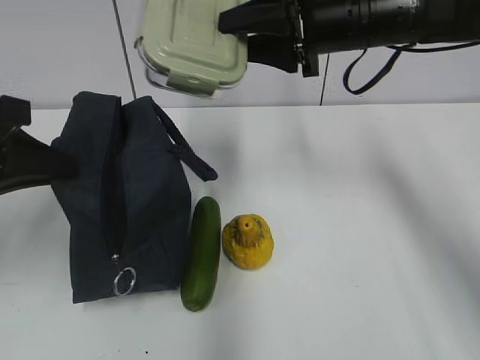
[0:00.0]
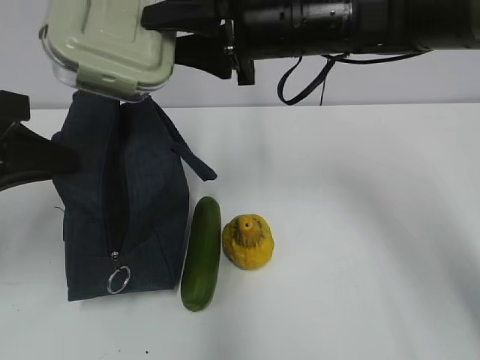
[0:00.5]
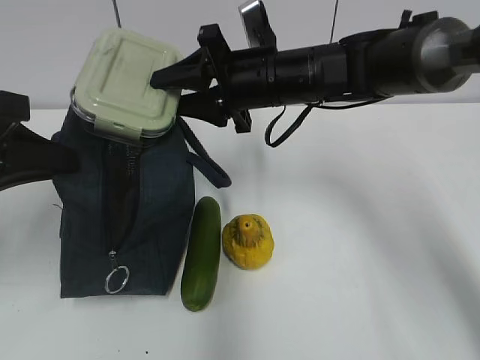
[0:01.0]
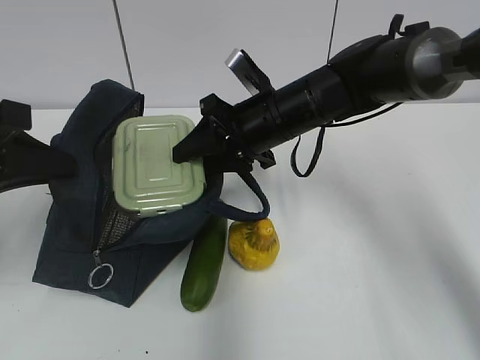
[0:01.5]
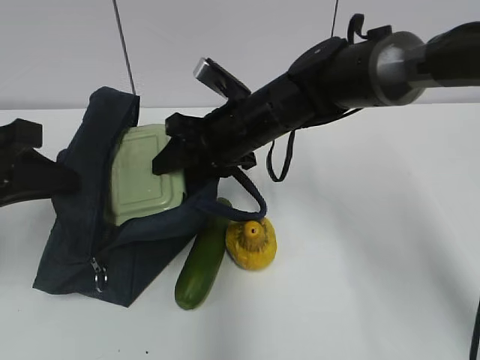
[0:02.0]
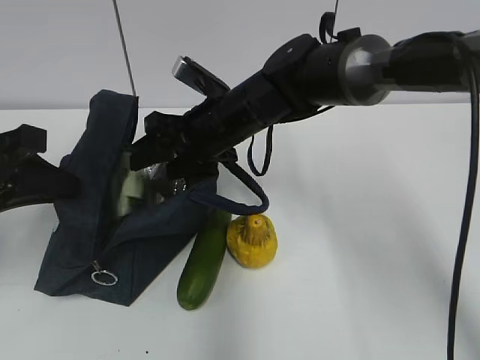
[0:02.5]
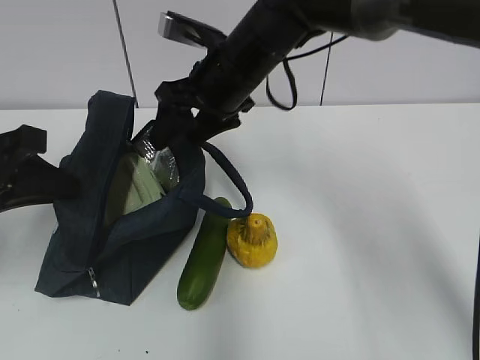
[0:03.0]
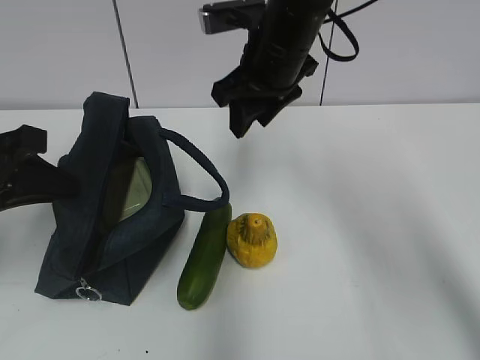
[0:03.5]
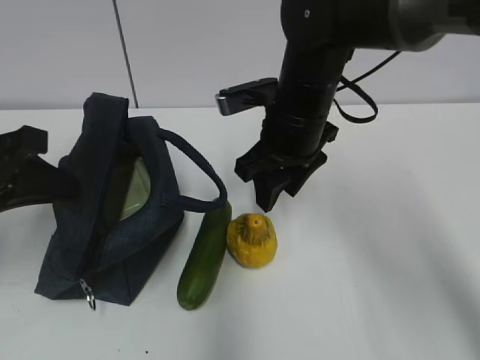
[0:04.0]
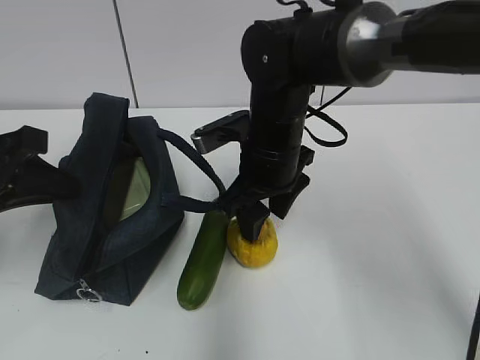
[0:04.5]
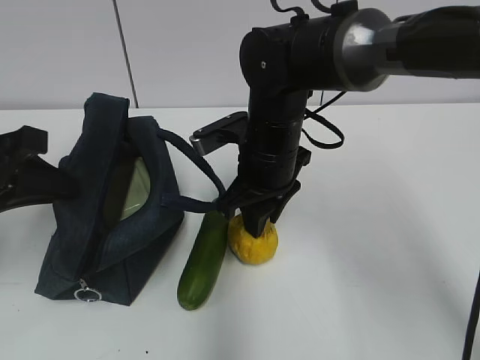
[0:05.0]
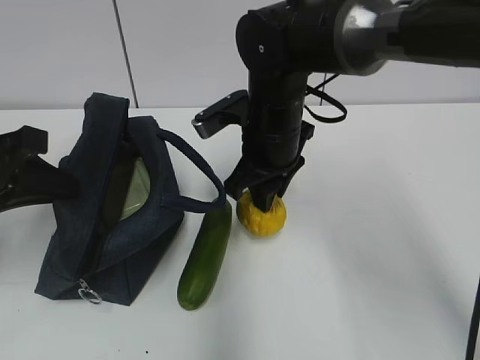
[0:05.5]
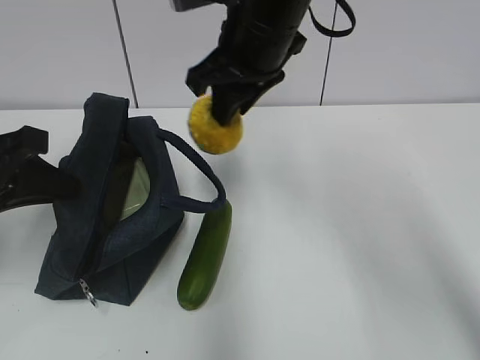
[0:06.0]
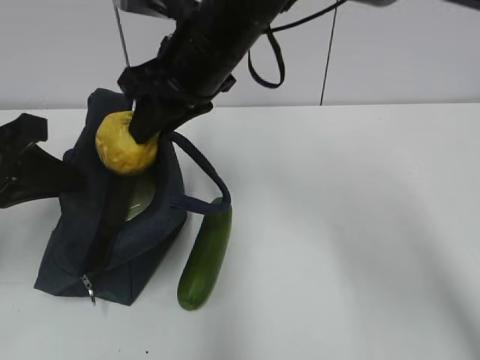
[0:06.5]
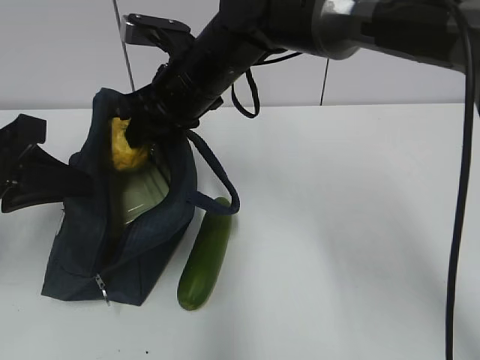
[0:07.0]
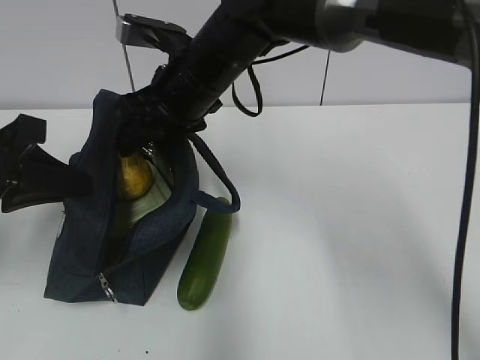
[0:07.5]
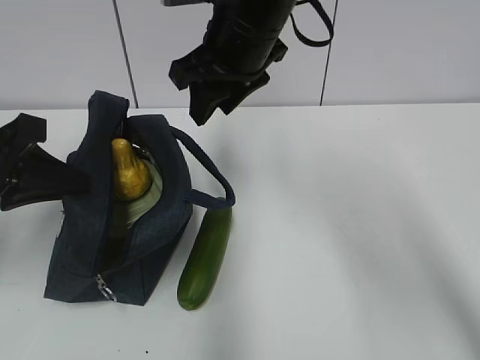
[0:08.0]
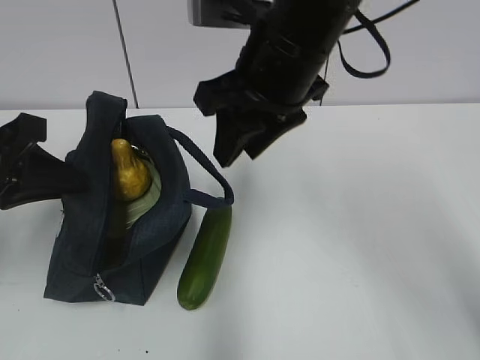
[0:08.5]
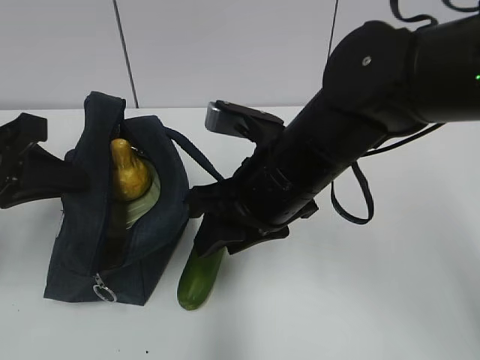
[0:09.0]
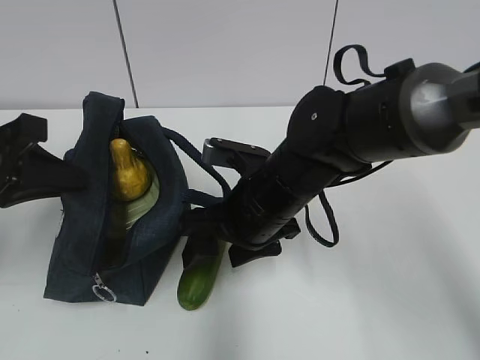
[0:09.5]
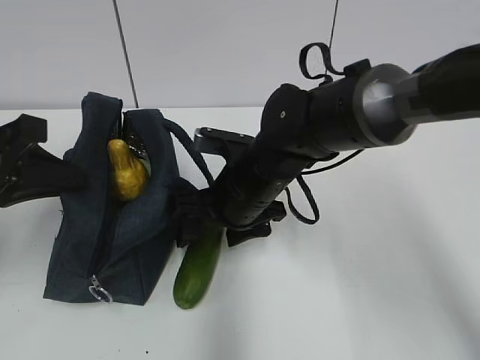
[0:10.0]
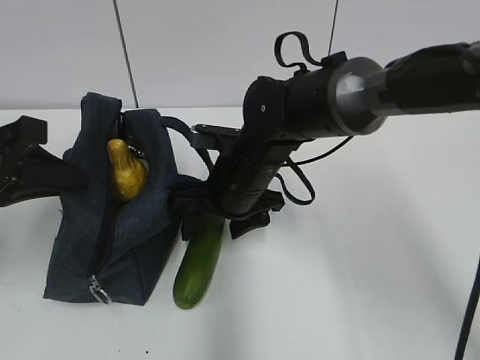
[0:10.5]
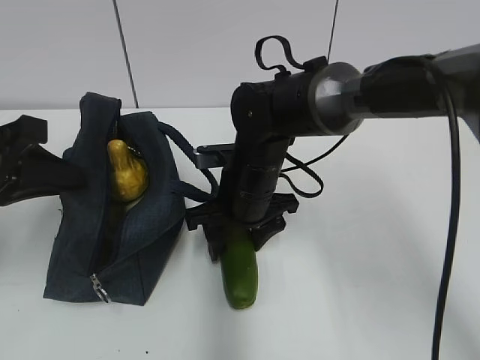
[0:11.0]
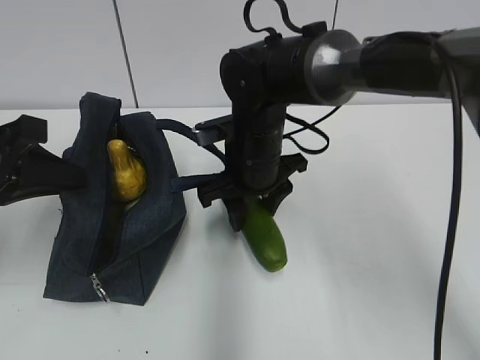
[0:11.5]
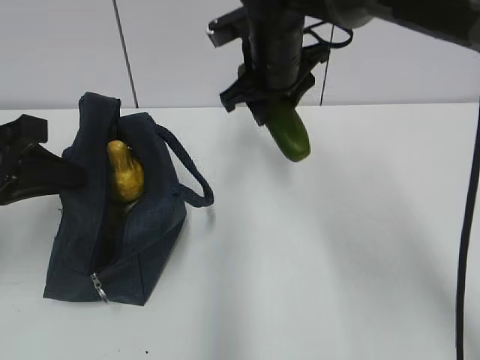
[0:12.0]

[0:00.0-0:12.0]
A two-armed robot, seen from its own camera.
0:00.0 to 0:02.0: The right gripper travels downward and to the left by approximately 15 cm.
0:02.0 to 0:04.0: The right gripper reaches about 10 cm upward, then returns.
0:04.0 to 0:06.0: The right gripper travels upward by approximately 10 cm.
0:08.0 to 0:10.0: The right gripper moves downward, approximately 15 cm, and opens its fingers.
0:10.0 to 0:12.0: The right gripper is displaced upward and forward by roughly 15 cm.

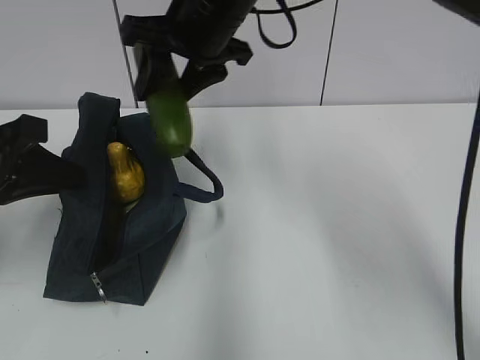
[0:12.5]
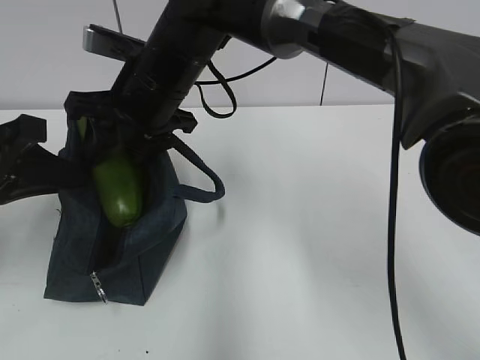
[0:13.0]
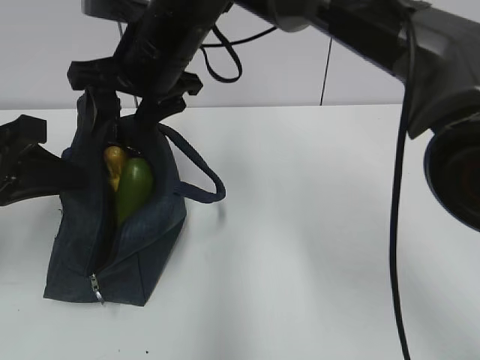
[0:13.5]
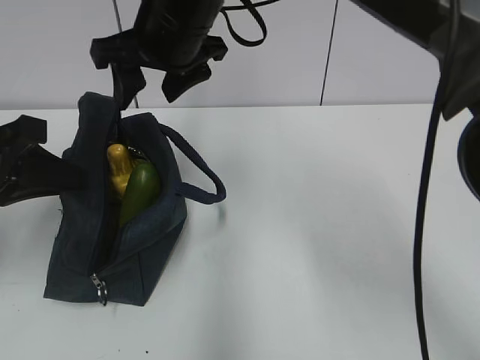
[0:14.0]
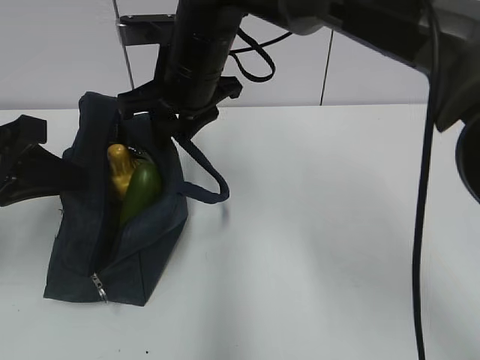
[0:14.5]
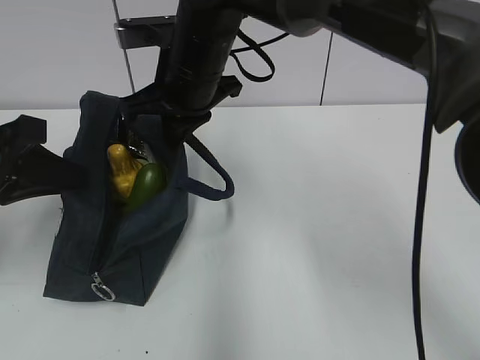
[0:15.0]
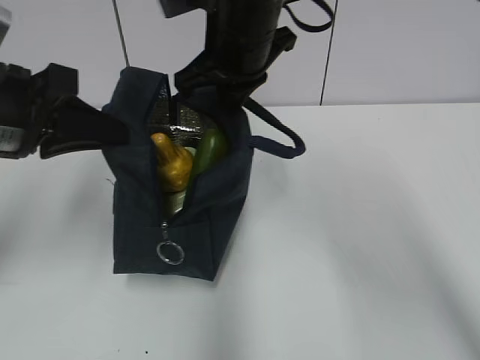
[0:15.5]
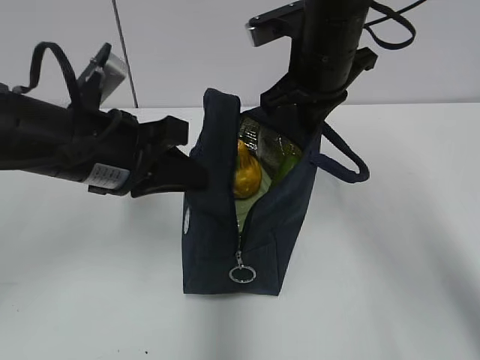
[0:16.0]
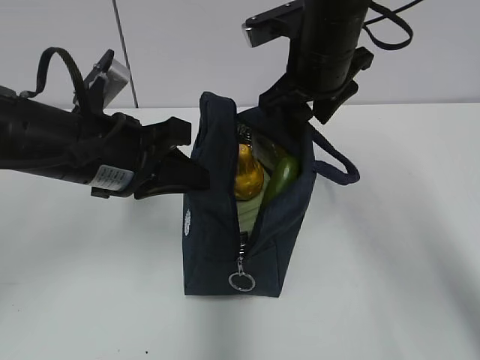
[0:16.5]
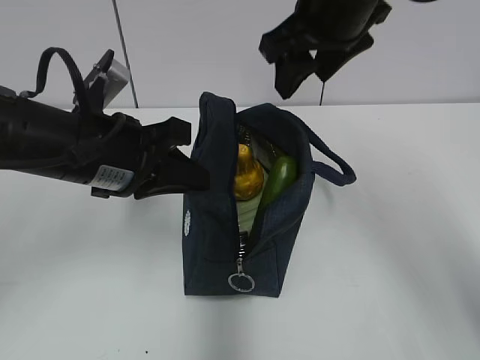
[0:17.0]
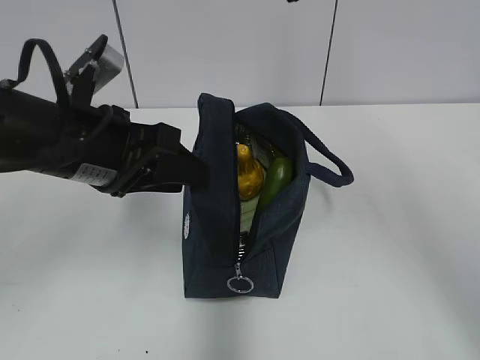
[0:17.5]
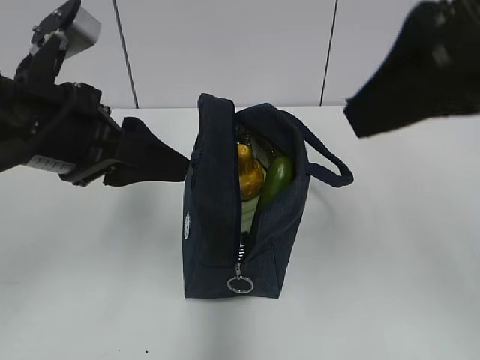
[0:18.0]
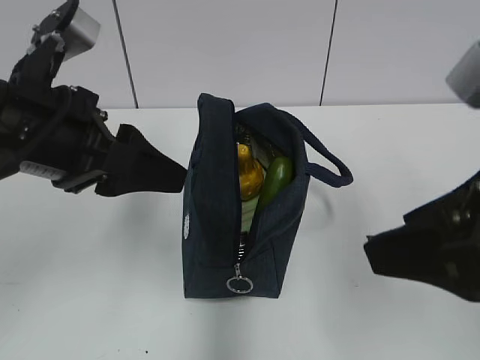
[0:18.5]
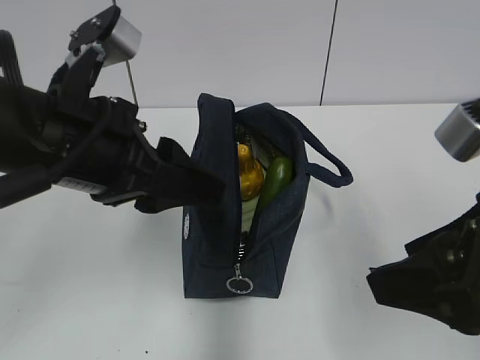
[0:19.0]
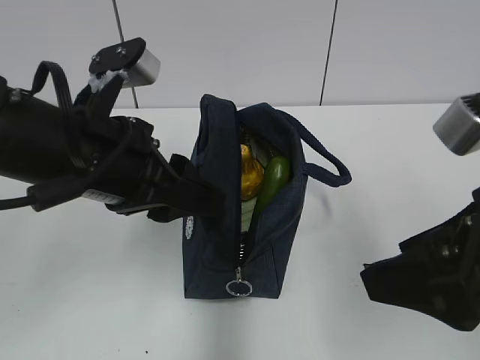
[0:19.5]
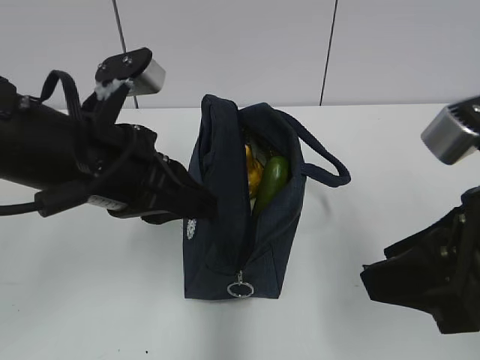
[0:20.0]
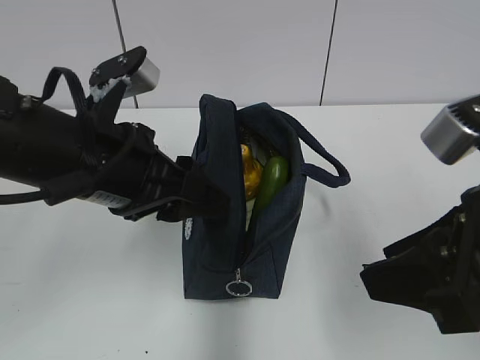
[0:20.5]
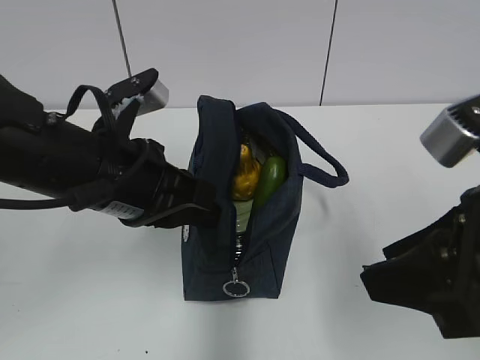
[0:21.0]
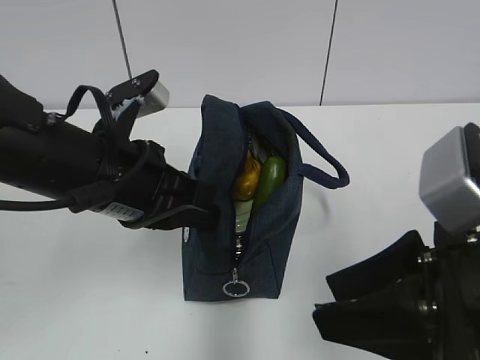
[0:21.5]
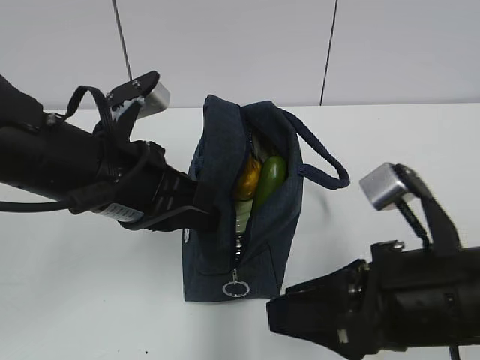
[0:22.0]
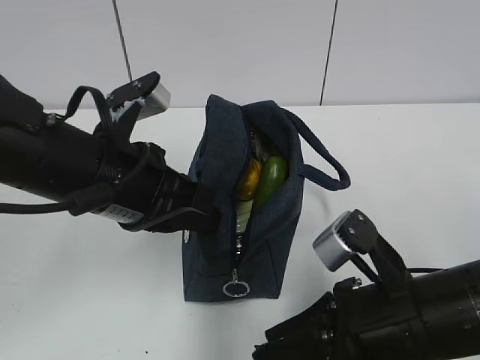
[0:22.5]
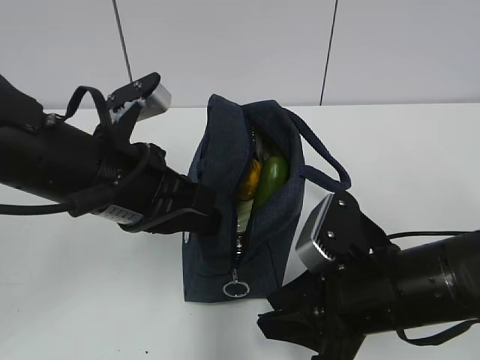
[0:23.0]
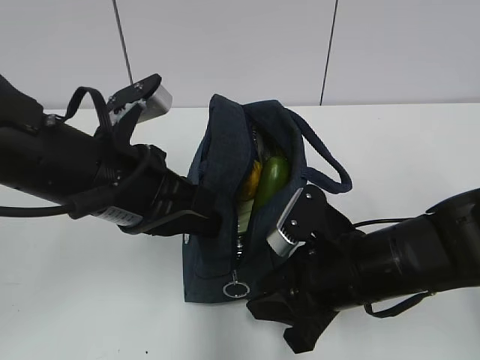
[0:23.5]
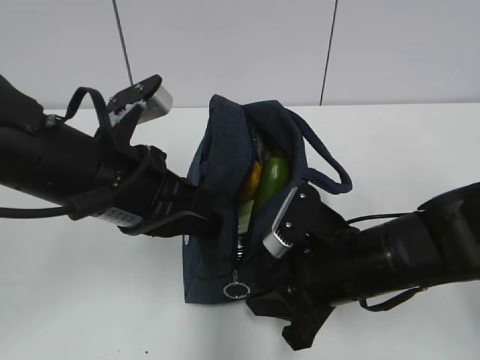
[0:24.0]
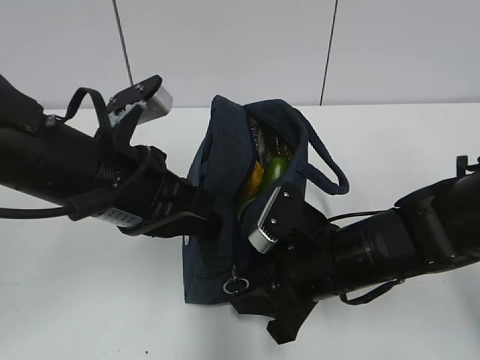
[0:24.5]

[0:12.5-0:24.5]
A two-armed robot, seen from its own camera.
0:12.5 to 0:14.5: The right gripper moves up and down over roughly 5 cm, changing direction 2 times.
0:14.5 to 0:16.5: The two grippers go approximately 10 cm to the right. The right gripper closes, then reopens.
0:16.5 to 0:18.5: The right gripper is displaced backward by about 25 cm. Meanwhile the left gripper changes place by some 5 cm, and opens up.
0:18.5 to 0:20.5: The left gripper moves roughly 5 cm, and closes, then opens again.
0:20.5 to 0:22.5: The right gripper shifts about 10 cm downward. Meanwhile the left gripper closes its fingers.
0:22.5 to 0:24.5: The right gripper moves forward, approximately 10 cm.

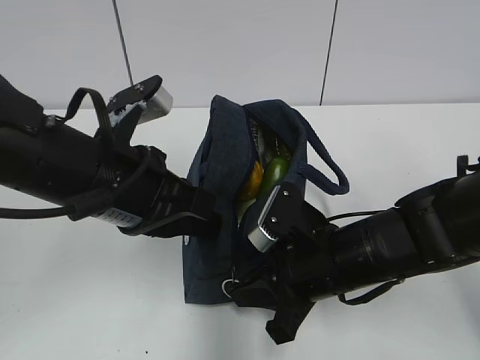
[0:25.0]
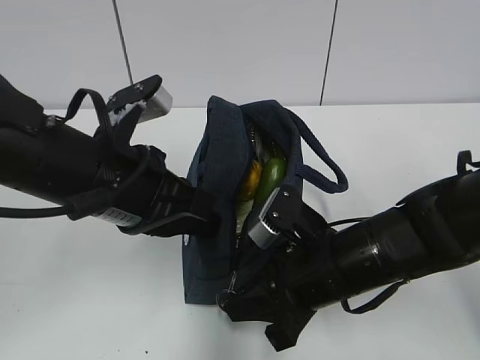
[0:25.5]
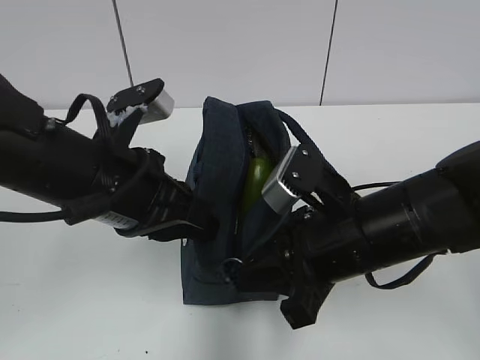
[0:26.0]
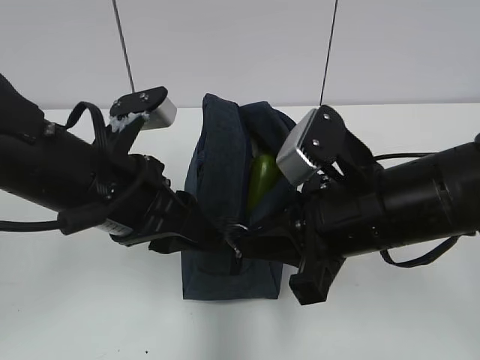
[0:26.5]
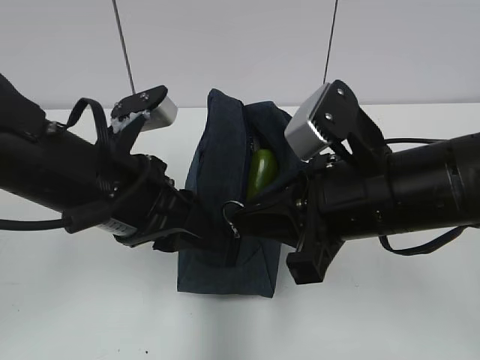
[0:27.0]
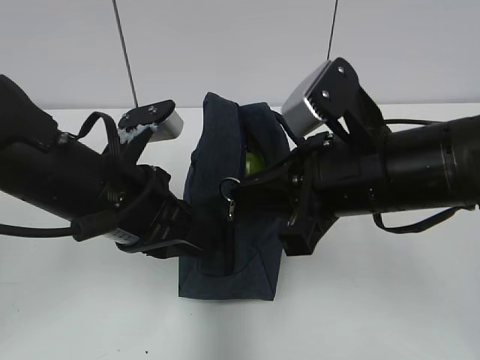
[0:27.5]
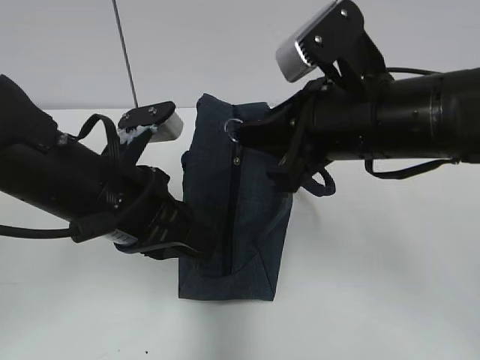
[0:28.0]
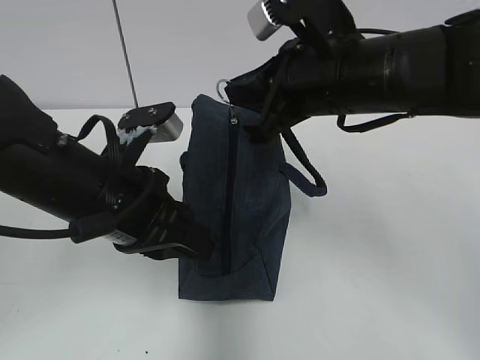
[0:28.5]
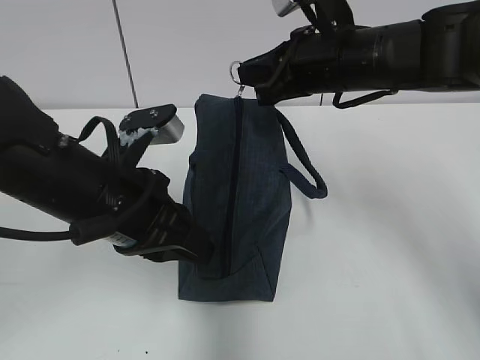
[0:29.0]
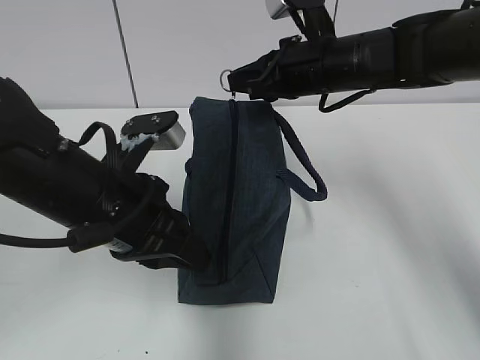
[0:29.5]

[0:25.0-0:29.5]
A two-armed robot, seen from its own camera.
0:25.0 to 0:27.0: The left gripper opens up; the right gripper goes approximately 10 cm upward.
0:27.0 to 0:29.5: The left gripper closes its fingers; the right gripper moves forward, some 20 cm.
